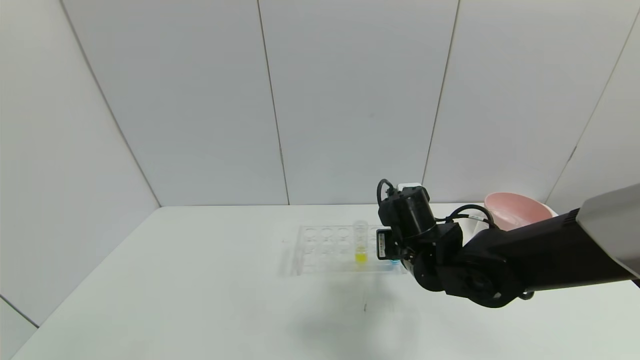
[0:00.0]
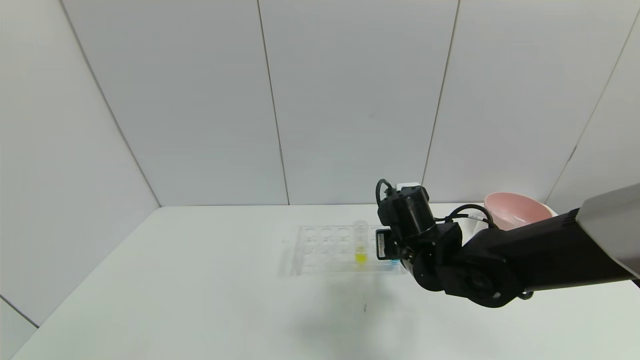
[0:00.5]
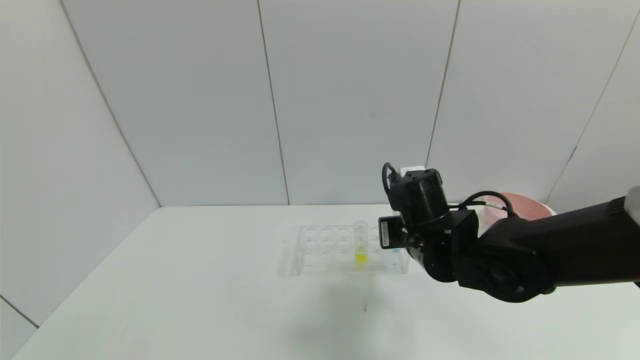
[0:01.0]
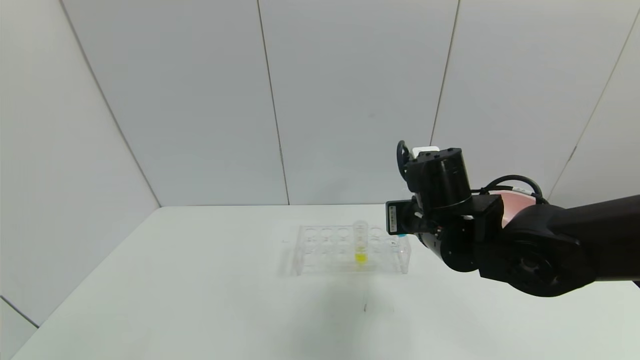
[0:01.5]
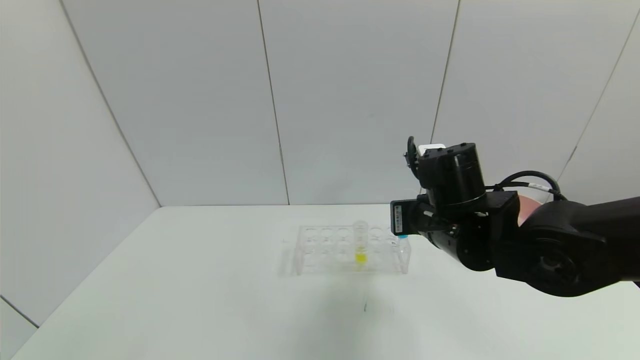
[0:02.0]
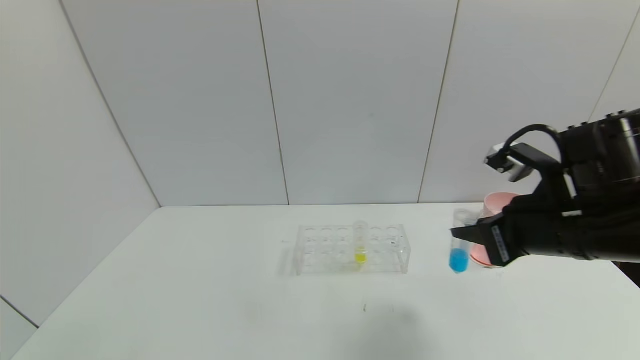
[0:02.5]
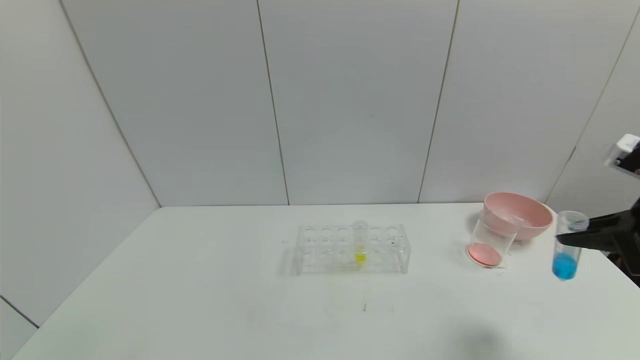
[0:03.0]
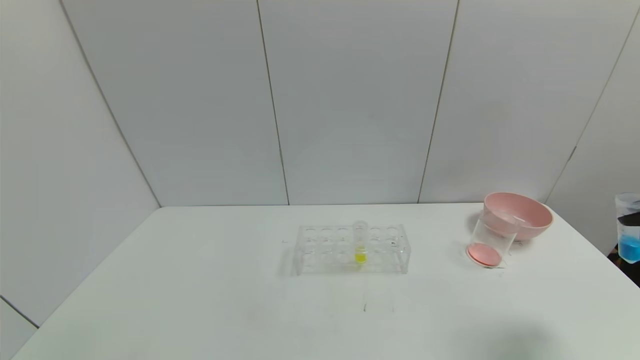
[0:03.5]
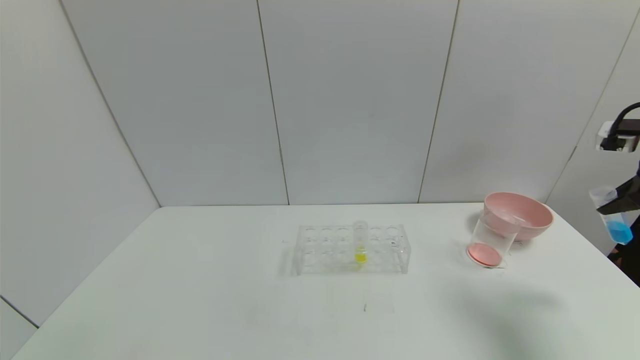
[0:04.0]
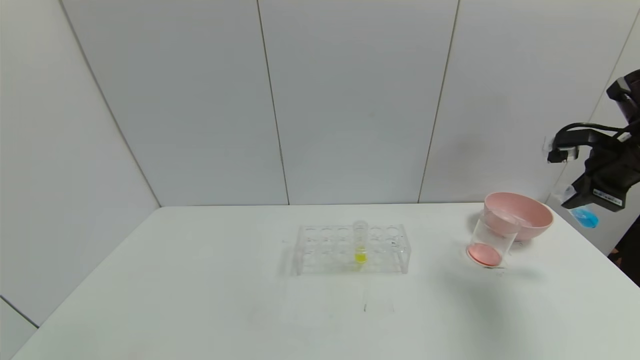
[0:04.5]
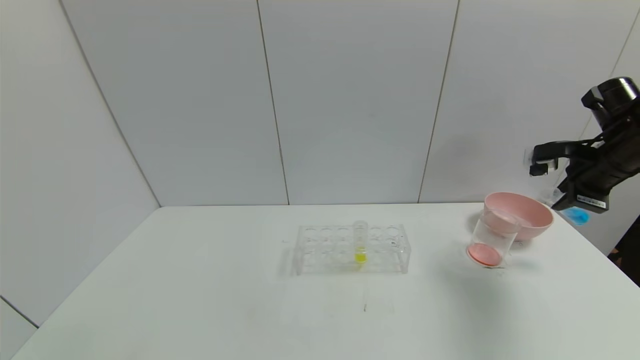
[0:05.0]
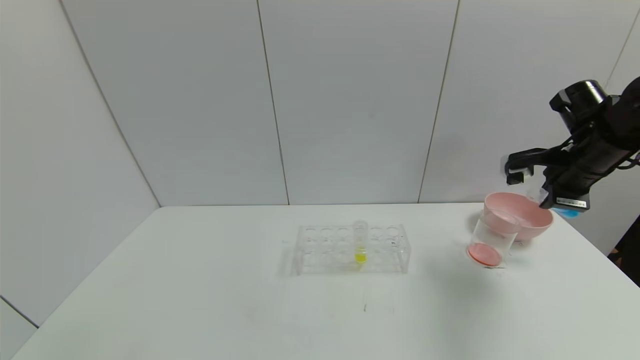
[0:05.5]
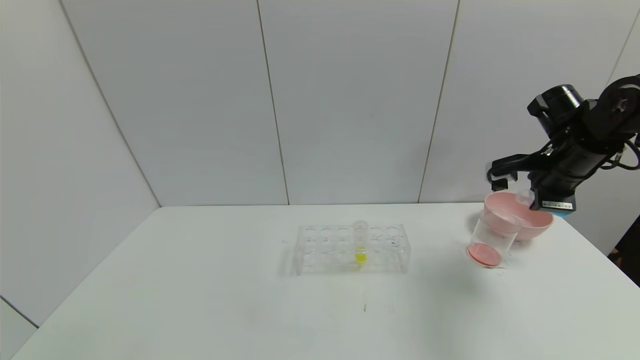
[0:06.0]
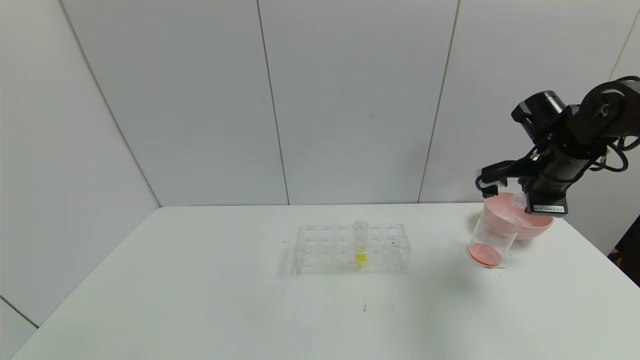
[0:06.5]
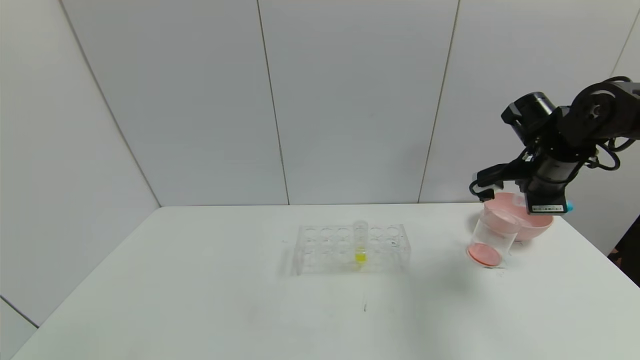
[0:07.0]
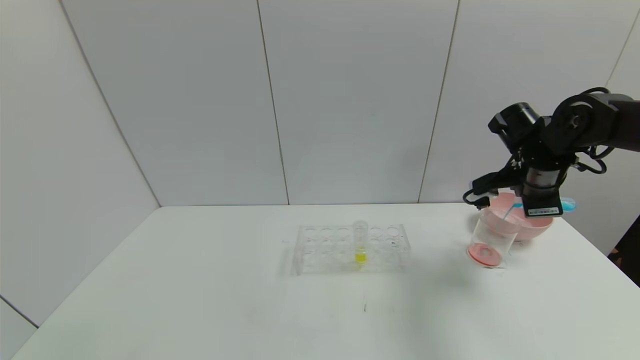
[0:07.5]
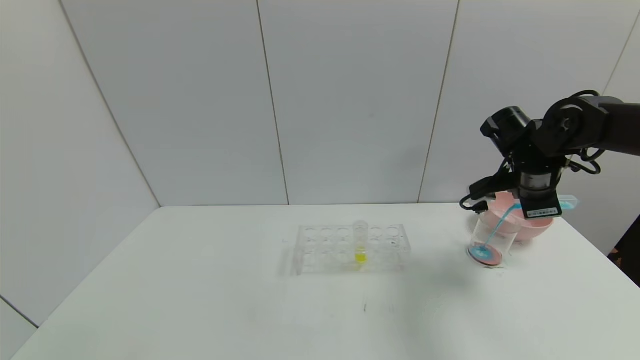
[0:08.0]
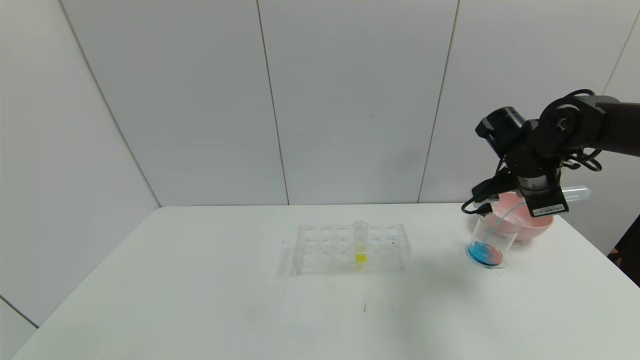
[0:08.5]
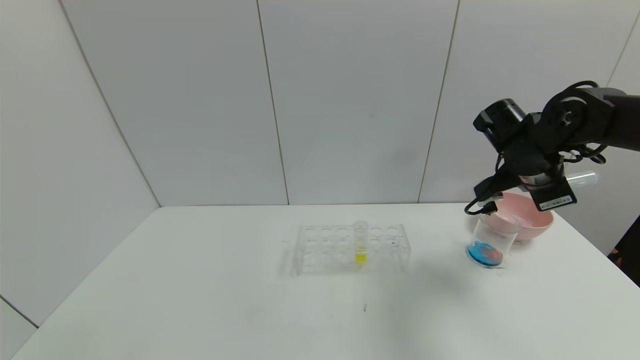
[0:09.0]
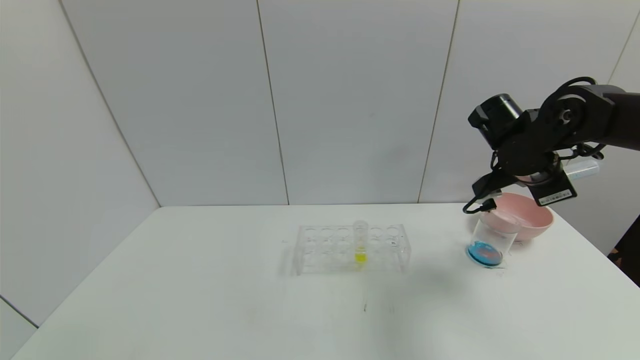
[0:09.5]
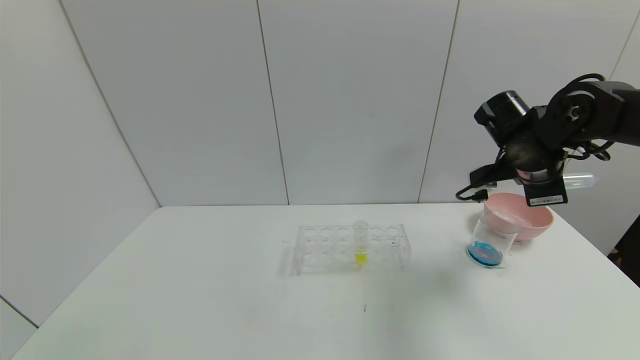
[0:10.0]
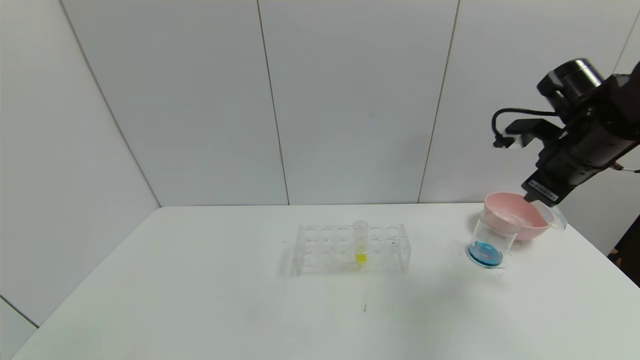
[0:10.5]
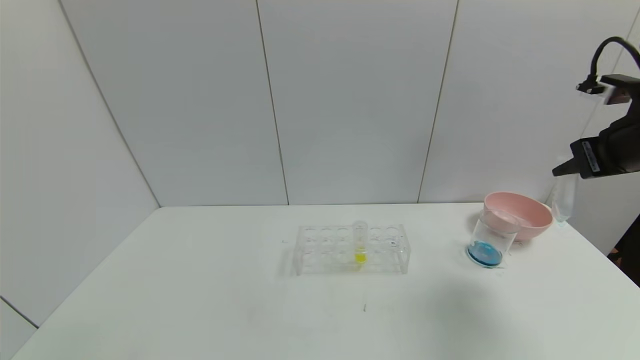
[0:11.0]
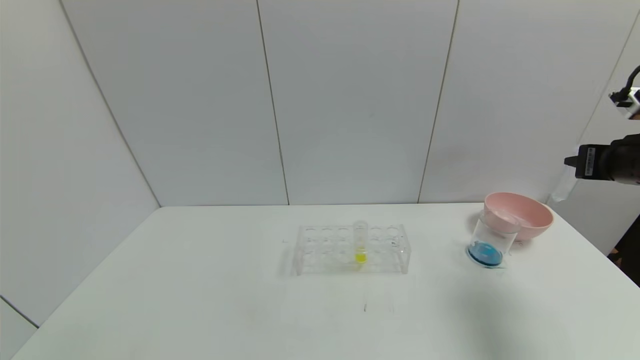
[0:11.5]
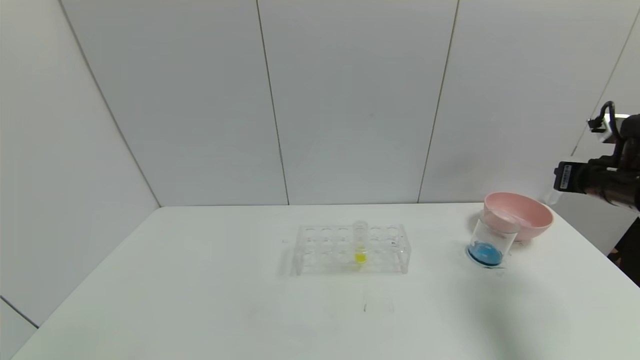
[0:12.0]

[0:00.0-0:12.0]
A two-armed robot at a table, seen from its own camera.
Task of the whole recording: pick up the test tube with red pigment and the test tube with blue pigment by grippers and pour them into the container.
Step, 0:00.5 to 0:09.0: Pour the blue reagent into the graduated cylinder with the right gripper.
0:00.0 to 0:02.0: The right gripper travels upward by about 5 cm.
0:02.0 to 0:04.0: The right gripper shifts about 30 cm to the right.
0:04.0 to 0:06.0: The right gripper goes approximately 15 cm to the left and forward.
0:08.0 to 0:10.0: There are only small adjustments of the grippers.
0:10.0 to 0:12.0: The right gripper moves to the right, roughly 15 cm.

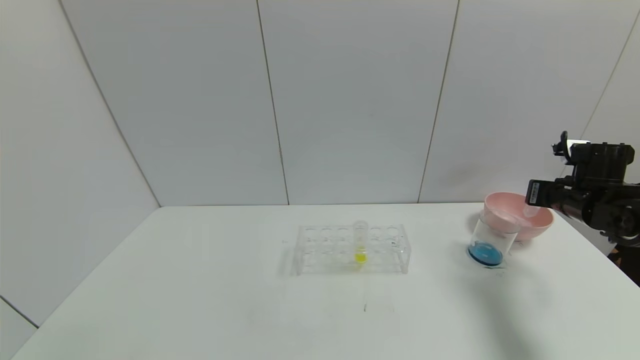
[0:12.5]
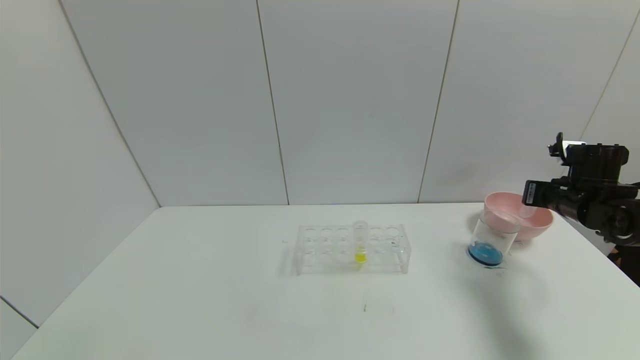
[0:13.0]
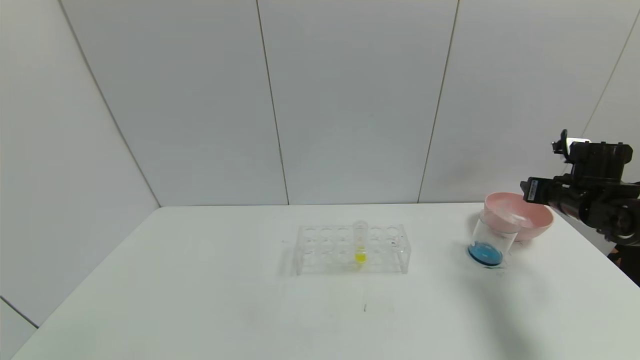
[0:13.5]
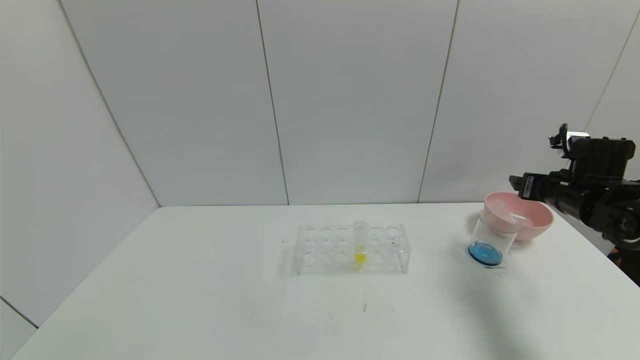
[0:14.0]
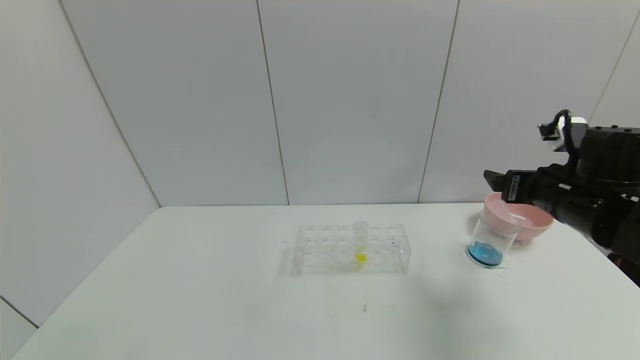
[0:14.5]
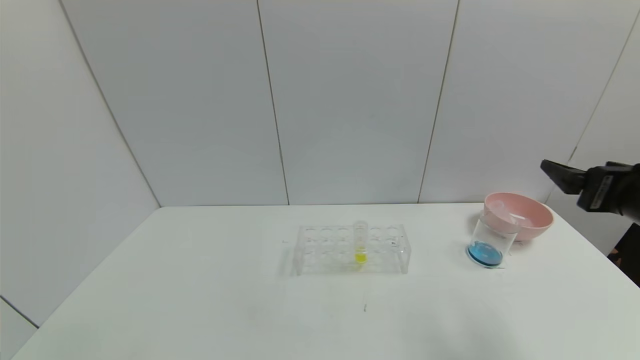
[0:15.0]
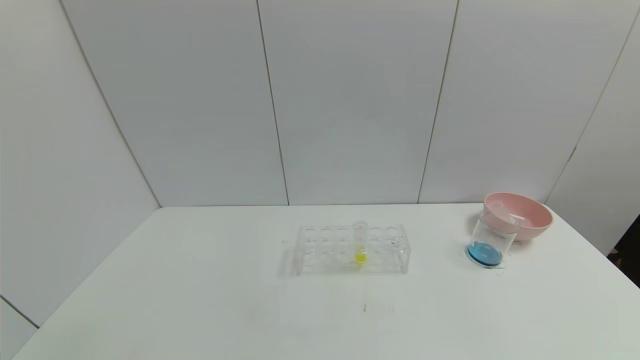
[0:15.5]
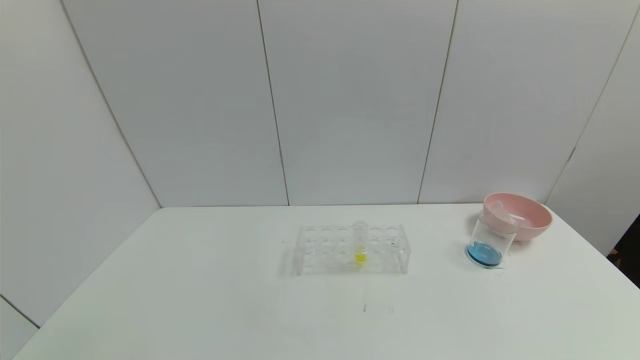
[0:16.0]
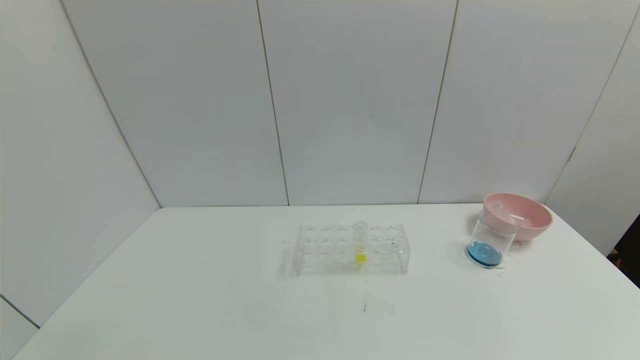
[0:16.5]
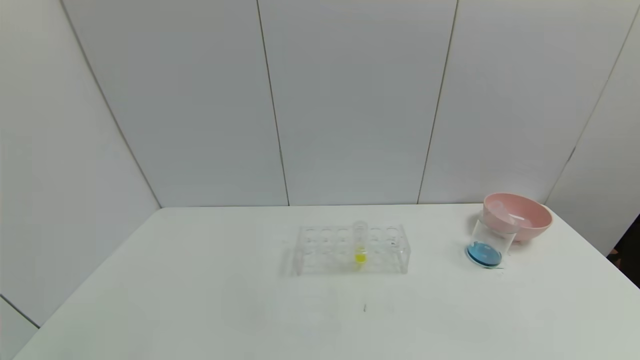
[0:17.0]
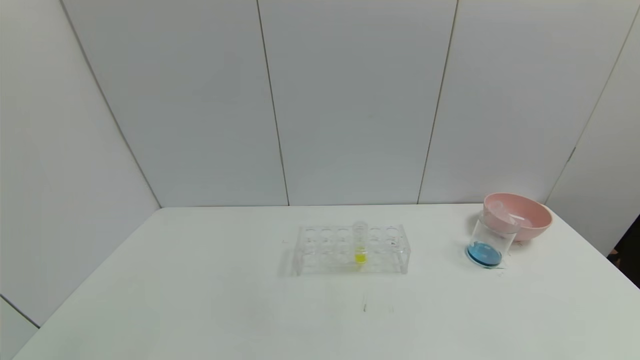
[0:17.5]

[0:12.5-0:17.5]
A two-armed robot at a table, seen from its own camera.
Task of the whole recording: pick up the test tube with red pigment and the test tube with blue pigment by grippers and pour them into the container.
Step, 0:12.5 to 0:14.5: Place the test tube into the bowl with the right gripper.
0:12.5 to 0:15.0: The right gripper shifts about 20 cm backward, upward and to the left, and opens its fingers.
0:15.0 to 0:17.5: The right gripper moves backward and downward, some 30 cm.
